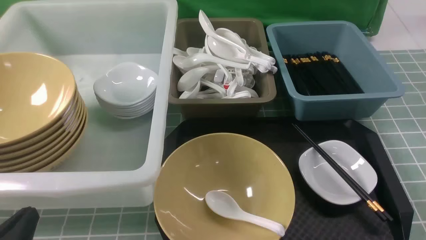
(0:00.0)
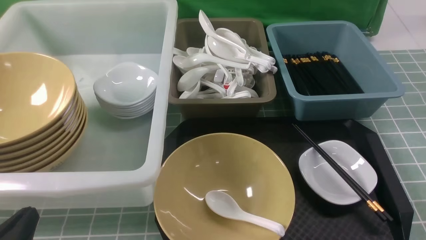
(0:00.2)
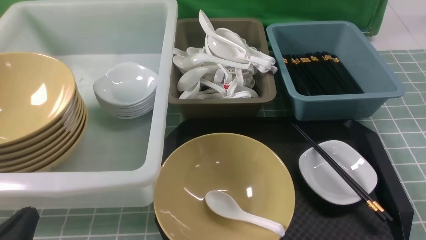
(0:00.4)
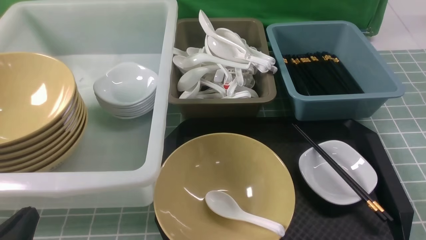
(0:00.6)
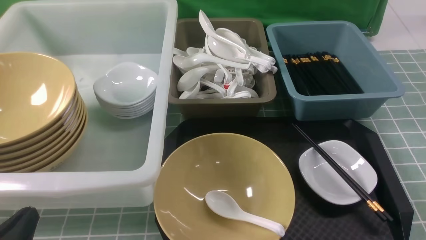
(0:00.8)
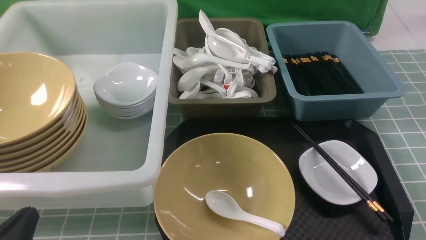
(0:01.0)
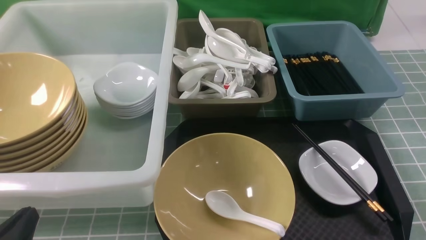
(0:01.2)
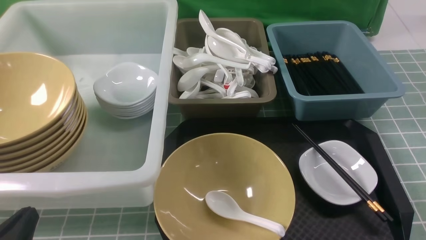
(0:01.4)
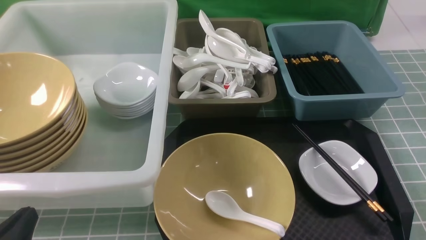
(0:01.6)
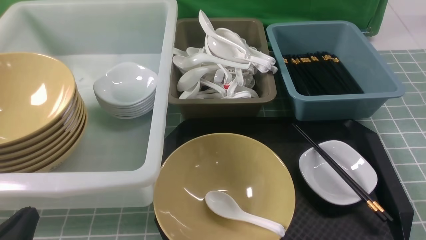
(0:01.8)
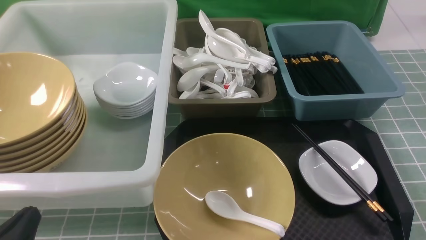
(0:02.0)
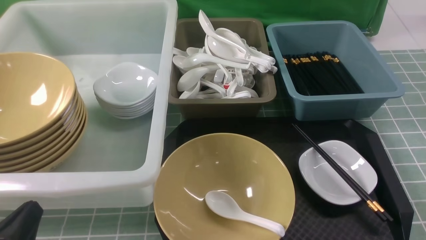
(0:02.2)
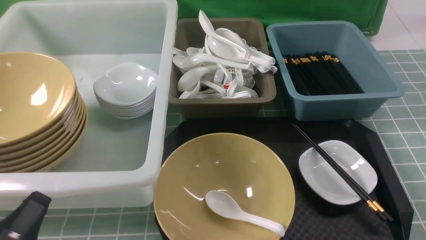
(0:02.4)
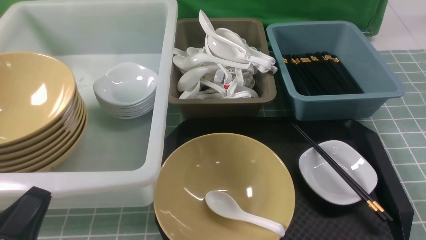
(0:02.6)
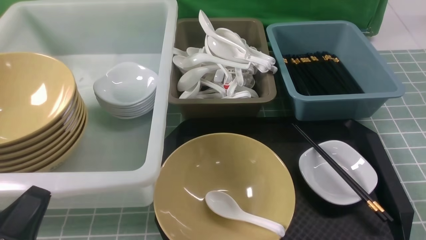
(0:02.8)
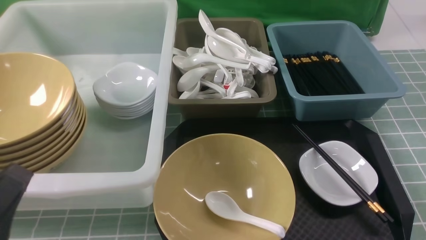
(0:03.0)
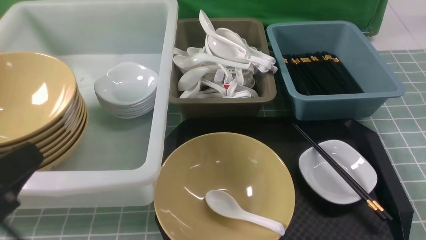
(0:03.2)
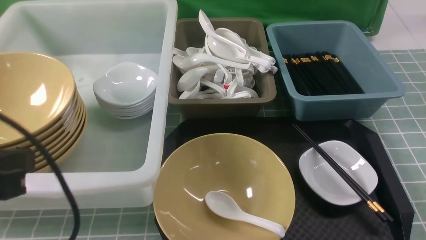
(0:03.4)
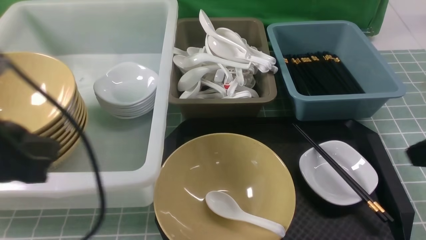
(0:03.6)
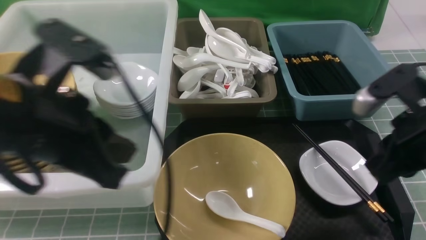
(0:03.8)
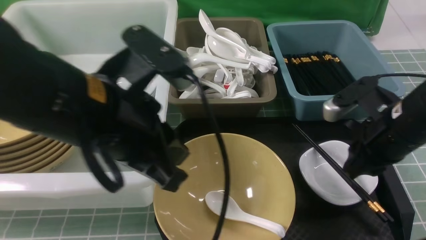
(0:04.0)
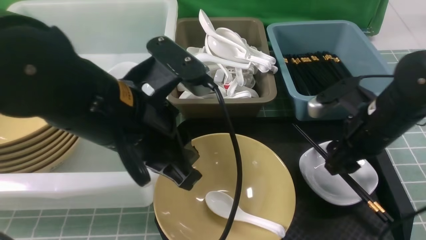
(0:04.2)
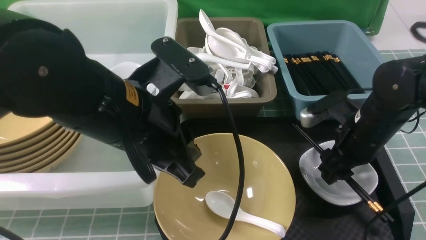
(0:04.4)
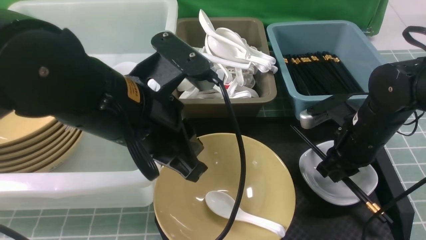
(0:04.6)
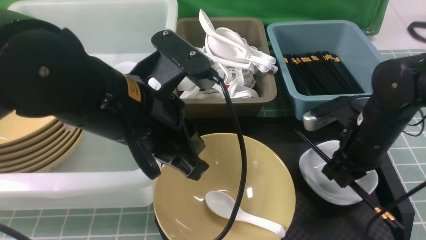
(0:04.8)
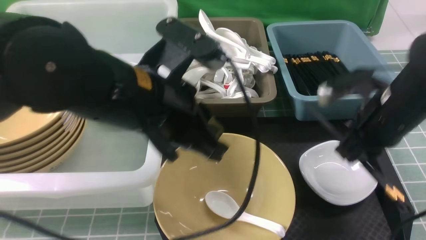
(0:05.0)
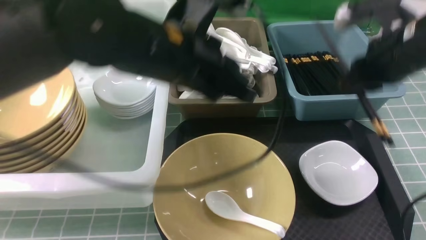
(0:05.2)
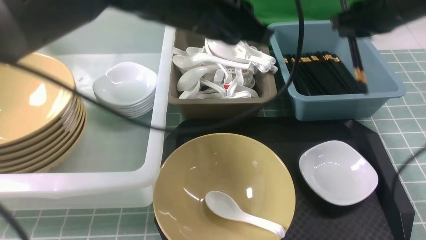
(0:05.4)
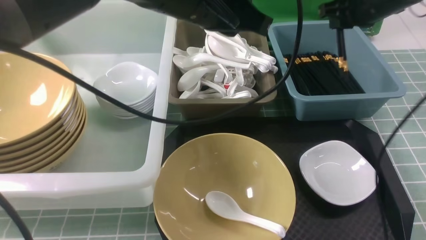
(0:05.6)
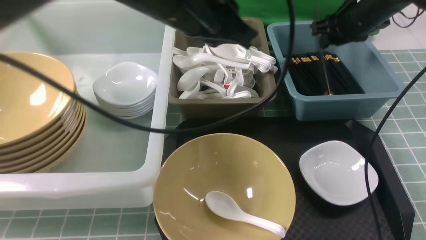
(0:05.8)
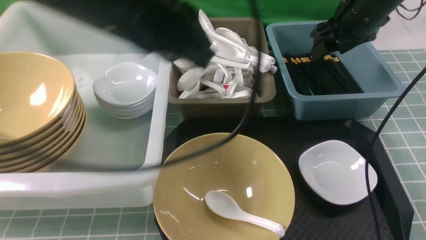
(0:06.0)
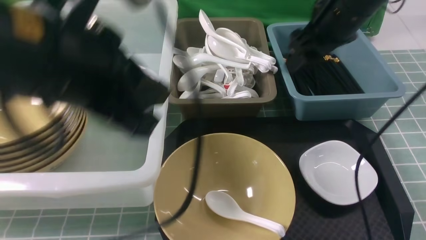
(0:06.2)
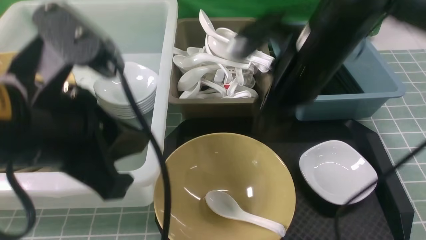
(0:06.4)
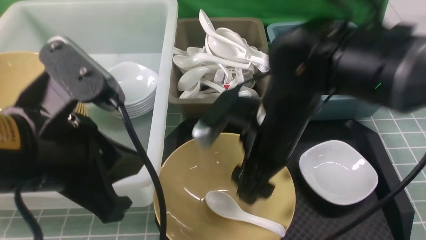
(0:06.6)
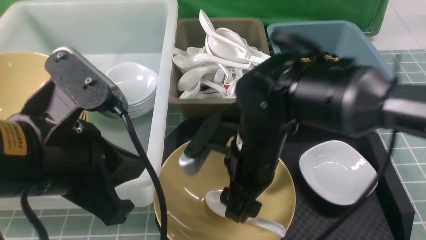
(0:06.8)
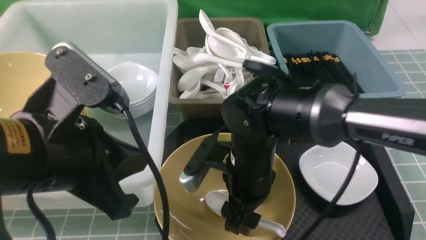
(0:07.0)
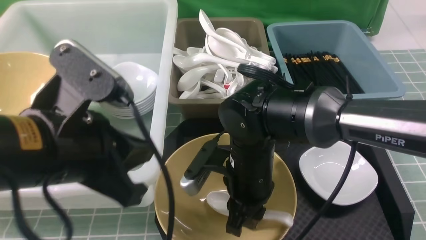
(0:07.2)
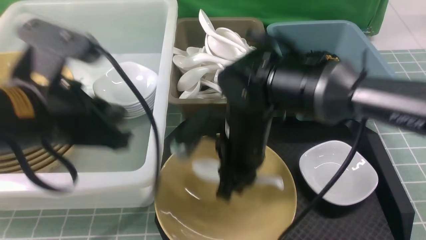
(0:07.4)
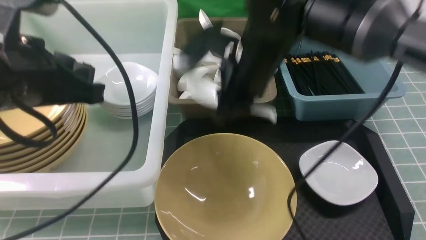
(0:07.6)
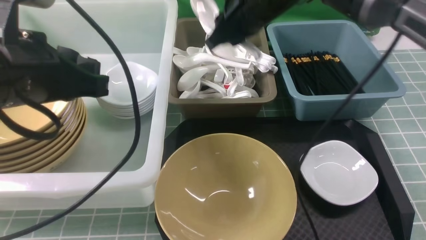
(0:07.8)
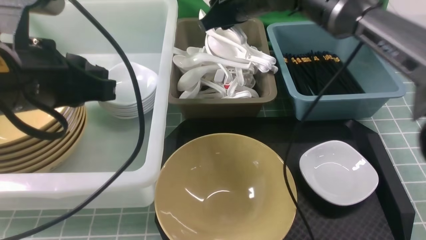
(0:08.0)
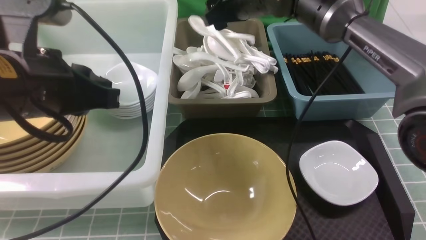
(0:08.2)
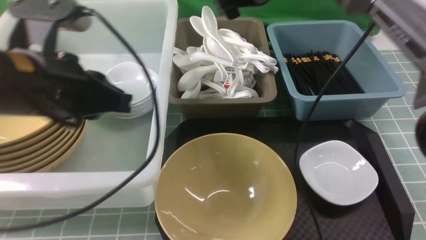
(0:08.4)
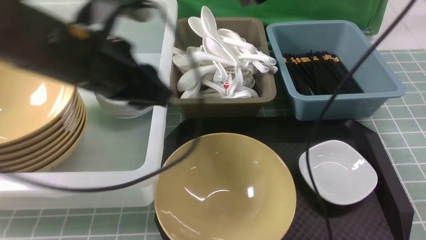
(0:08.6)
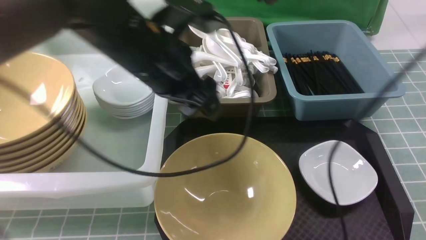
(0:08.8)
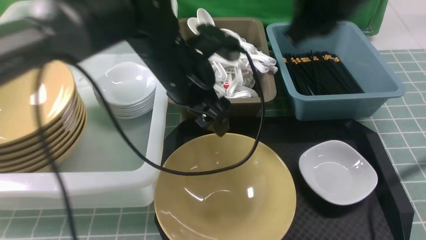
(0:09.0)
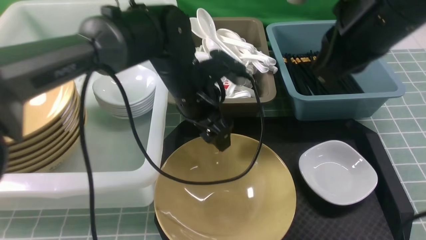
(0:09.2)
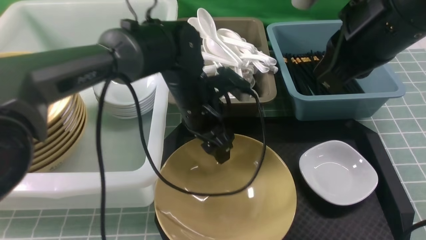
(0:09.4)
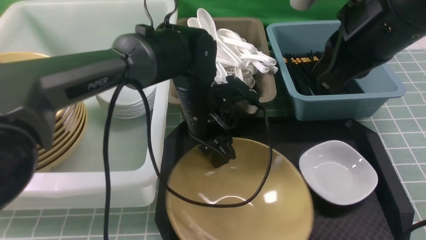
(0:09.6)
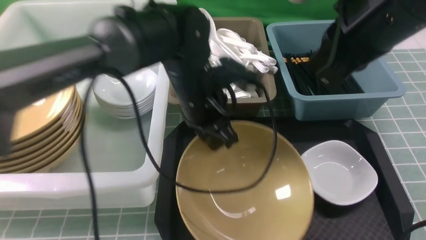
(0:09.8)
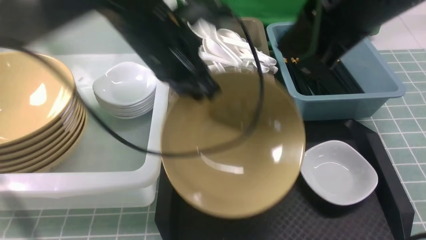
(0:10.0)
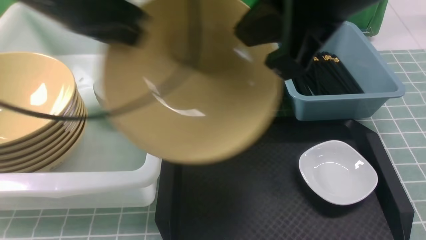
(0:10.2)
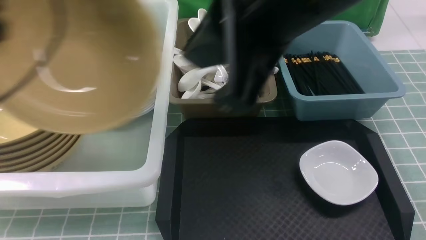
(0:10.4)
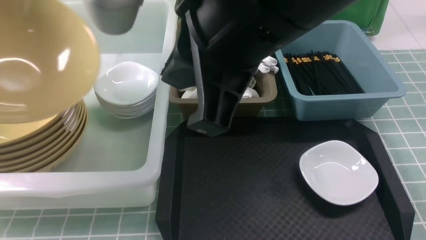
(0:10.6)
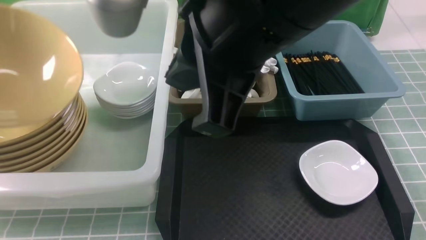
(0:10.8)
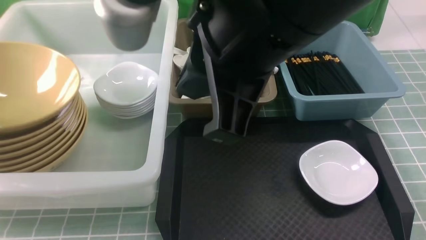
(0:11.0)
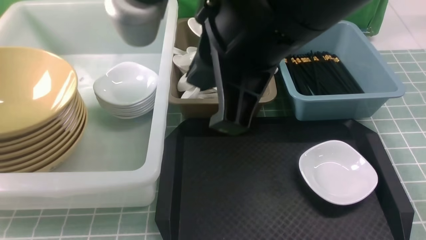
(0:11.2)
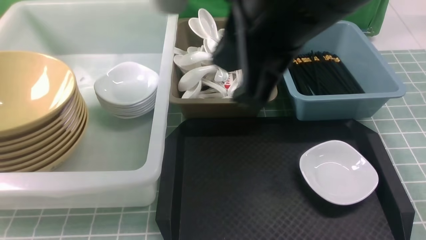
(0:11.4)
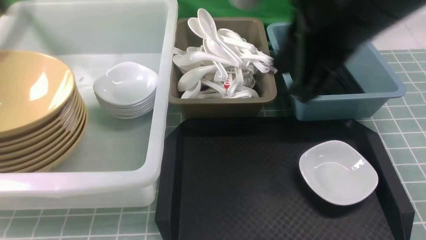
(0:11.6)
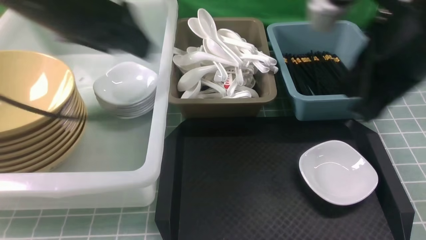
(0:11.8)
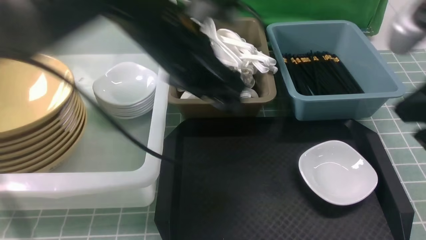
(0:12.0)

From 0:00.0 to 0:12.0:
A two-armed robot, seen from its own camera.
Task of the whole recording: on blue table put chopsticks spoon bowls plates into blue grey white boxes.
Step, from 0:00.0 to 0:04.8: use the right arm to grab the chopsticks.
Step, from 0:05.0 to 0:06.0: use the right arm to put the chopsticks into the small storage box on the right.
Step, from 0:06.2 to 0:07.4: use the right arm to grab the soup spoon in the middle.
Step, from 0:07.6 to 0:08.4: use the right arm to put the soup spoon into the small storage box in the middle.
Step, from 0:08.6 to 0:09.8: use the left arm to grab the yellow noodle bowl on the left.
Step, from 0:10.0 to 0:11.4: use the left arm to put the noodle bowl into the large storage box on the left.
From 0:00.0 to 0:01.6: Both grippers stay about where they are.
From 0:01.6 to 0:03.0: Both grippers move upward, some 10 cm.
From 0:03.0 to 0:04.4: The right gripper goes approximately 25 cm forward, and opens. The left gripper moves forward, to the right and upward, roughly 20 cm.
From 0:04.4 to 0:06.0: The right gripper goes roughly 15 cm upward and forward, and closes and opens again. The left gripper shifts approximately 10 cm upward, and travels forward and back again, about 10 cm each way.
From 0:06.0 to 0:07.6: The left gripper shifts about 10 cm to the left and downward; the right gripper goes approximately 20 cm to the left and backward, and closes its fingers.
From 0:07.6 to 0:09.0: The left gripper shifts some 20 cm to the right, forward and downward, and opens up. Meanwhile the right gripper is displaced upward and to the right by roughly 15 cm, reaches approximately 10 cm forward, then returns, and opens, then closes again.
From 0:09.0 to 0:10.4: The right gripper goes roughly 15 cm backward and to the left. The left gripper heads to the left and upward, covering roughly 30 cm, and closes its fingers.
From 0:10.4 to 0:12.0: The right gripper heads to the right and downward, covering some 20 cm. The left gripper moves to the right, about 25 cm, and opens.

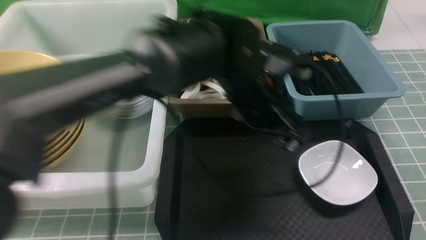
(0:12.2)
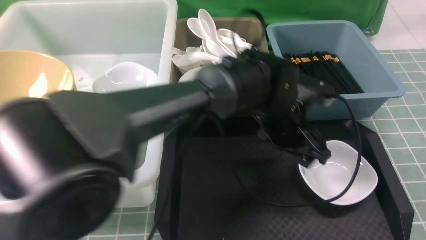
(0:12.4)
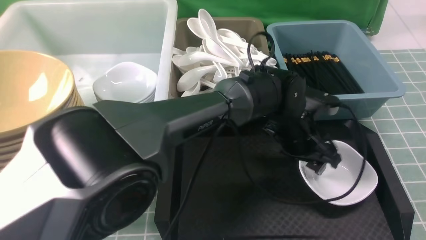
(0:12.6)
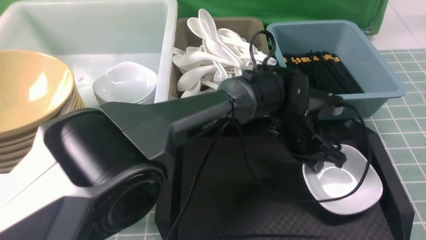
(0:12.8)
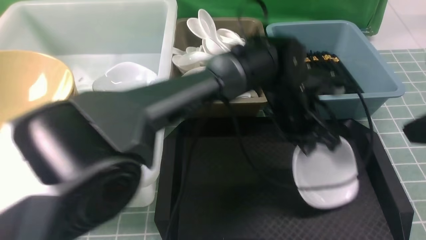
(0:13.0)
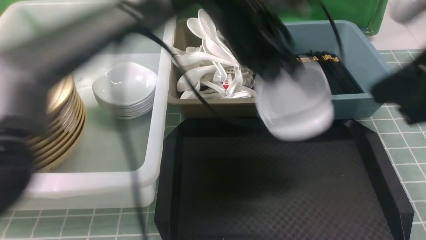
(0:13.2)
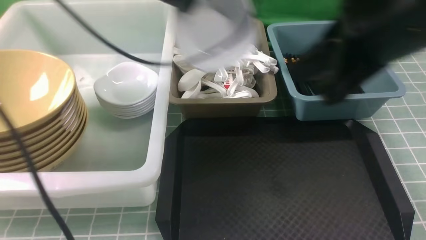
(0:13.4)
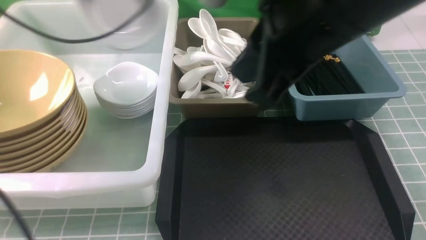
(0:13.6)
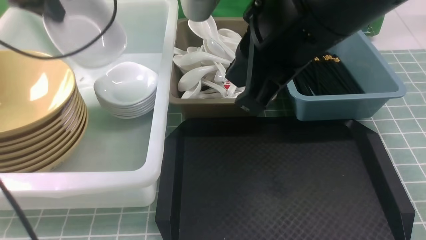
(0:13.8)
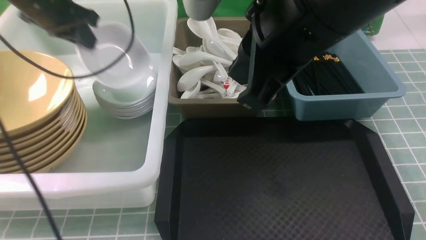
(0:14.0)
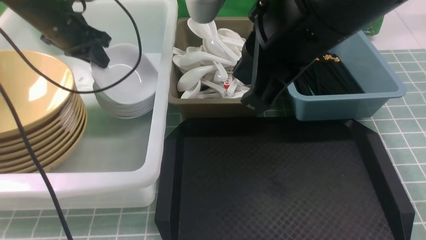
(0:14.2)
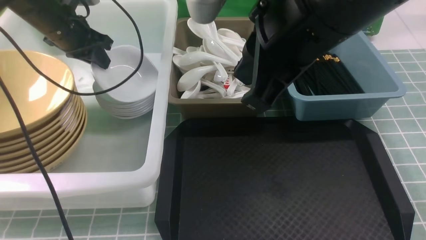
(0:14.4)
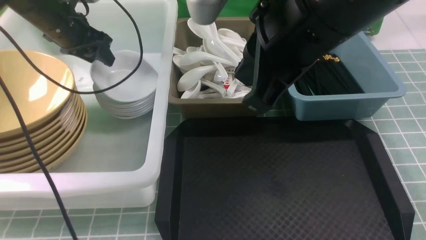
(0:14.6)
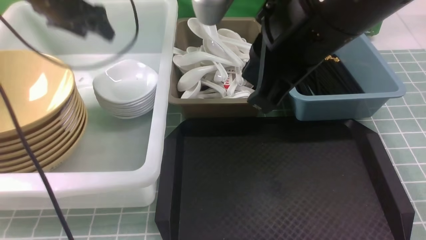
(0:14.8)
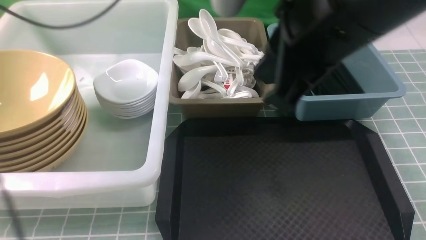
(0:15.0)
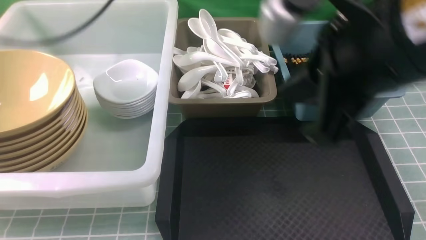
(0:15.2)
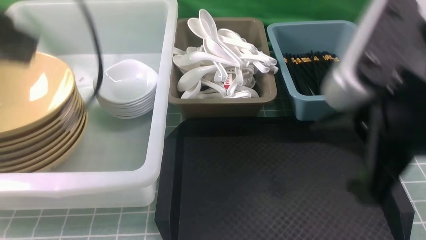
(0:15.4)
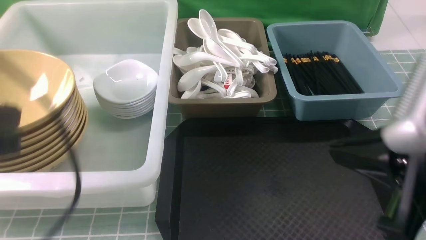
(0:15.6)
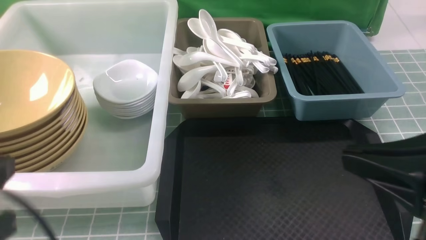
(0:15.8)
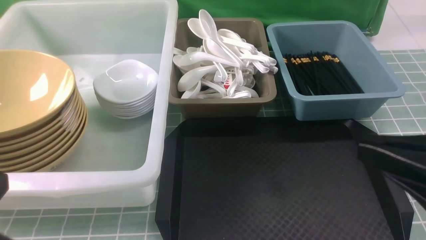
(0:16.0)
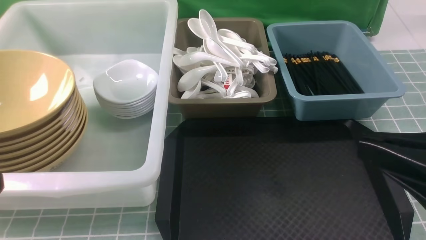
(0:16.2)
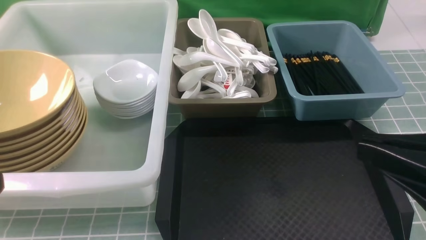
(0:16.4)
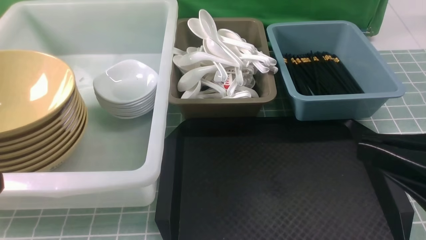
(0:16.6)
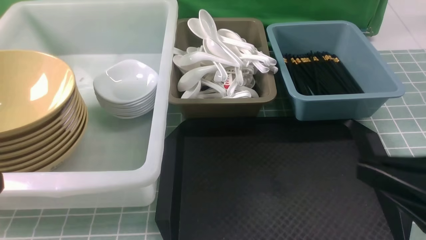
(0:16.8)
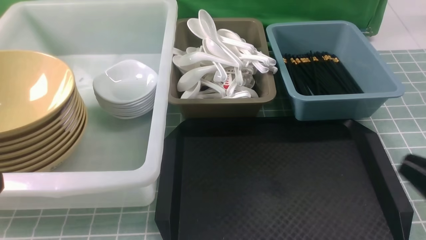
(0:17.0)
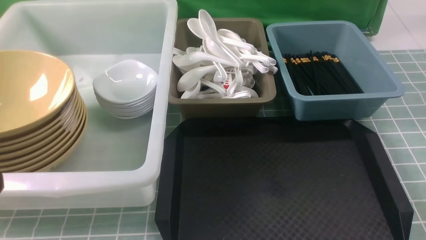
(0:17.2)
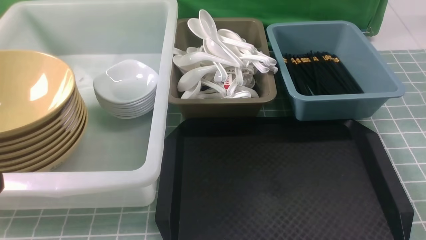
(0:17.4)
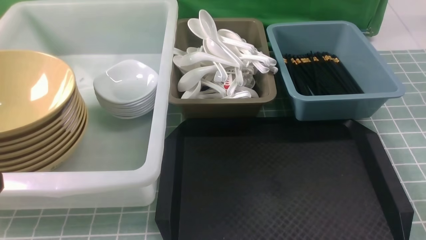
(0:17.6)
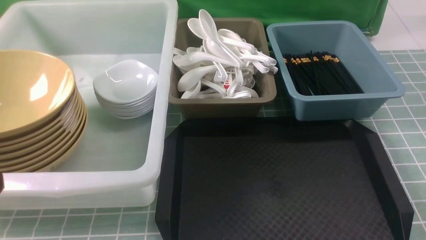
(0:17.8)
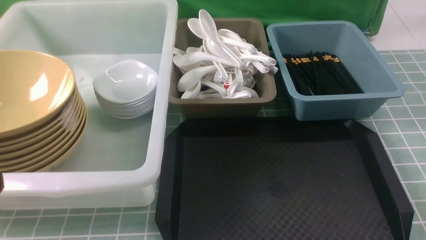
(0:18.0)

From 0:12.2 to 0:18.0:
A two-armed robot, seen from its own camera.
Task of the whole recording: on blue table put chopsticks spoon bowls plates into blue grey white boxes.
Step, from 0:12.2 to 0:13.0: use the left arm to grab the plate.
Step, from 0:13.2 to 0:14.8: use the left arm to put the plate into the large storage box on the left.
From 0:12.2 to 0:13.6: The left gripper travels to the left and upward by some 30 cm, and closes up; the right gripper is displaced to the left and forward by roughly 15 cm.
From 0:13.6 to 0:15.0: The left gripper moves approximately 15 cm downward and comes back, and opens its fingers.
From 0:15.0 to 0:16.6: The left gripper goes some 35 cm backward, and closes its fingers, while the right gripper travels backward, to the right and downward by roughly 20 cm.
From 0:16.6 to 0:18.0: The right gripper heads downward and to the right, covering some 20 cm.
